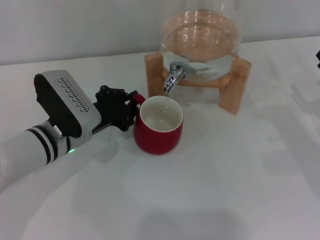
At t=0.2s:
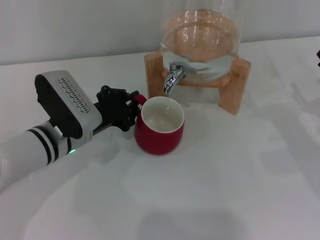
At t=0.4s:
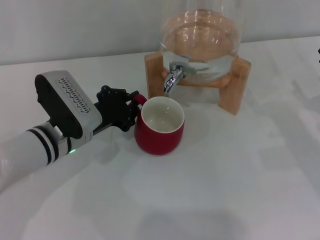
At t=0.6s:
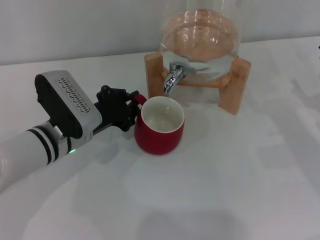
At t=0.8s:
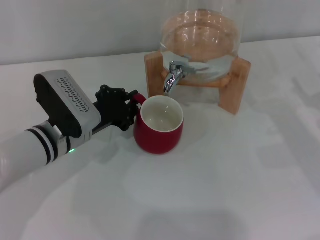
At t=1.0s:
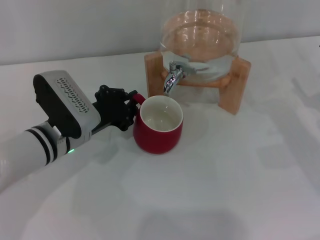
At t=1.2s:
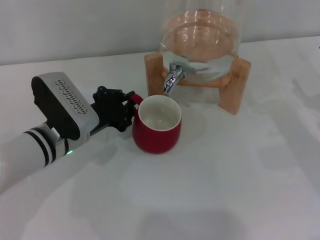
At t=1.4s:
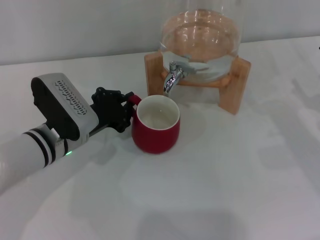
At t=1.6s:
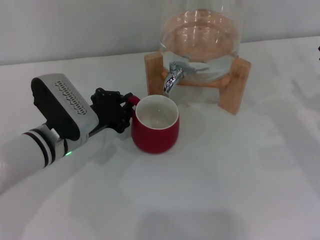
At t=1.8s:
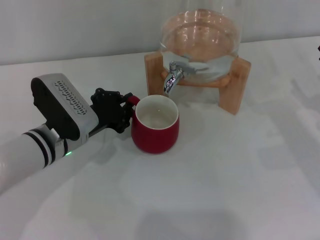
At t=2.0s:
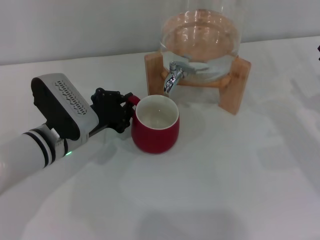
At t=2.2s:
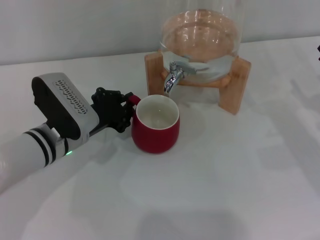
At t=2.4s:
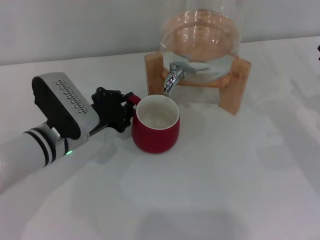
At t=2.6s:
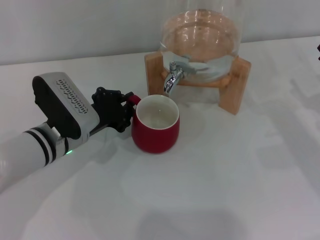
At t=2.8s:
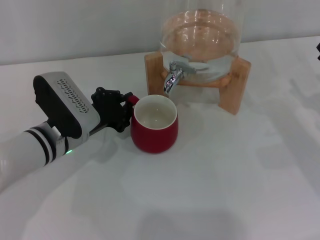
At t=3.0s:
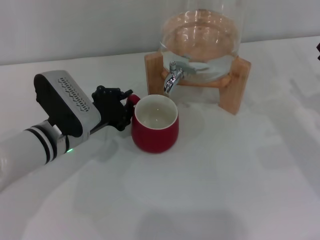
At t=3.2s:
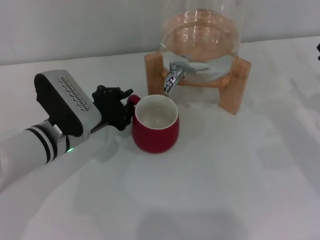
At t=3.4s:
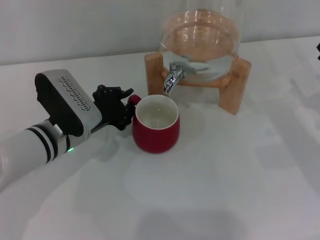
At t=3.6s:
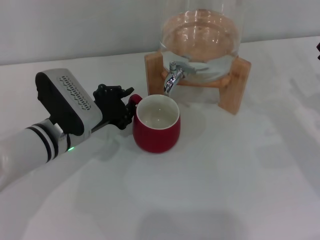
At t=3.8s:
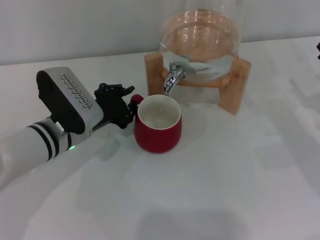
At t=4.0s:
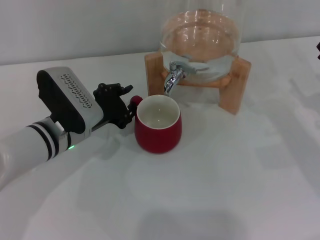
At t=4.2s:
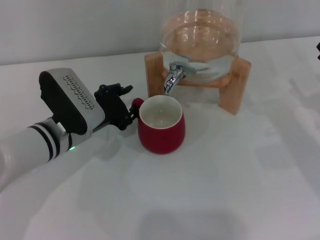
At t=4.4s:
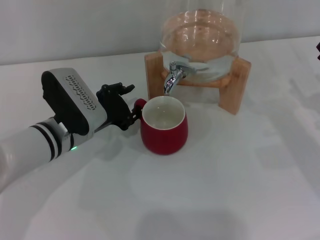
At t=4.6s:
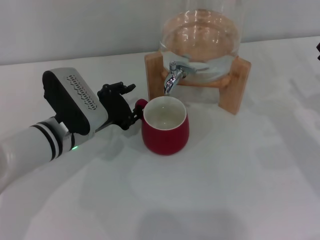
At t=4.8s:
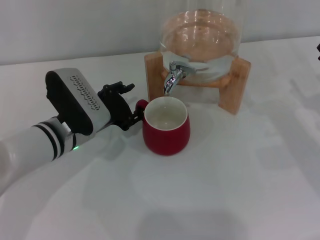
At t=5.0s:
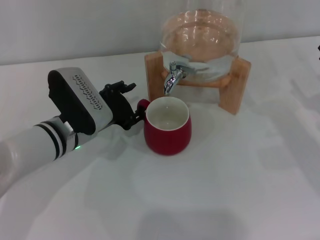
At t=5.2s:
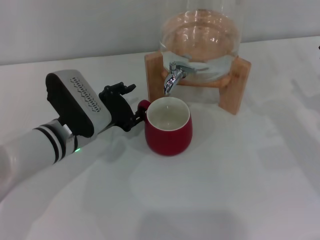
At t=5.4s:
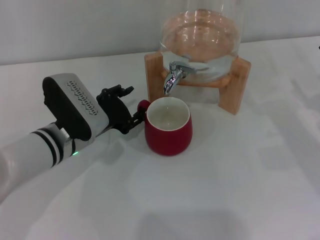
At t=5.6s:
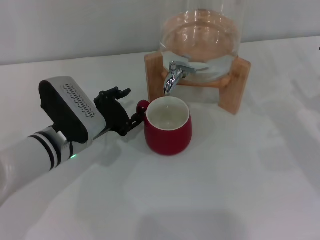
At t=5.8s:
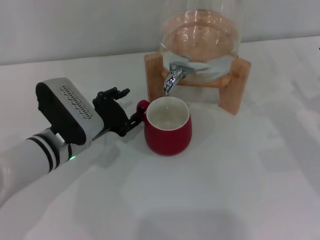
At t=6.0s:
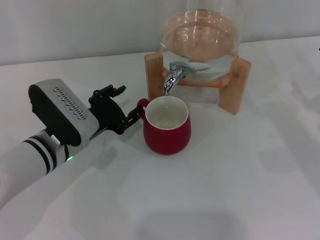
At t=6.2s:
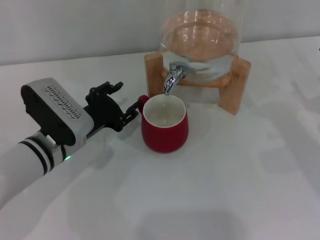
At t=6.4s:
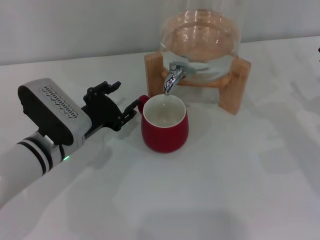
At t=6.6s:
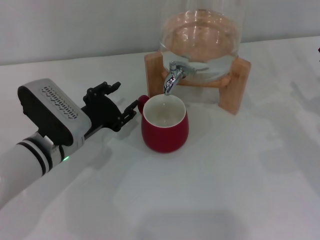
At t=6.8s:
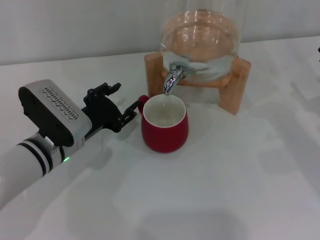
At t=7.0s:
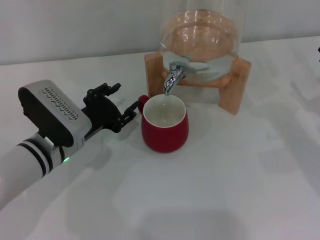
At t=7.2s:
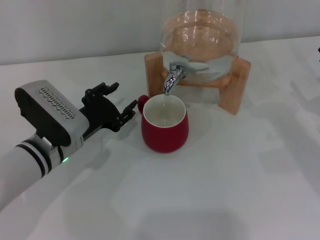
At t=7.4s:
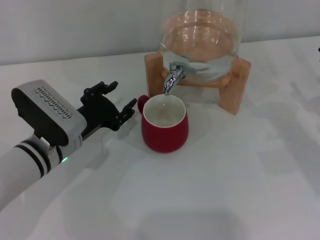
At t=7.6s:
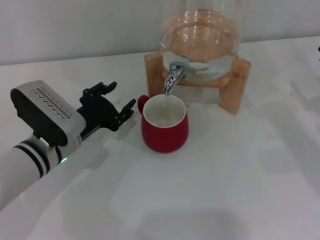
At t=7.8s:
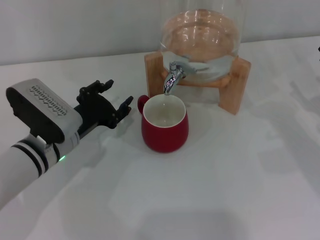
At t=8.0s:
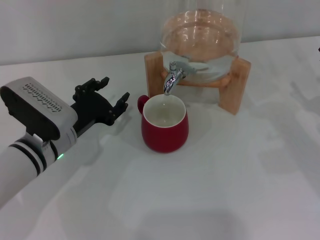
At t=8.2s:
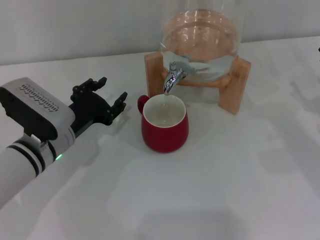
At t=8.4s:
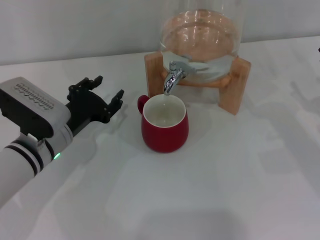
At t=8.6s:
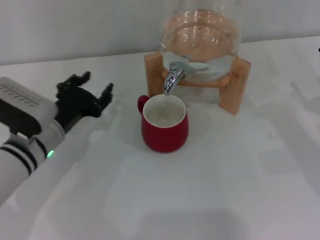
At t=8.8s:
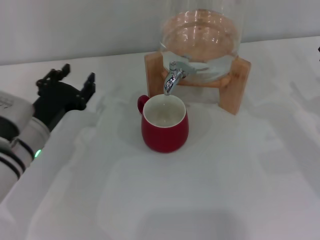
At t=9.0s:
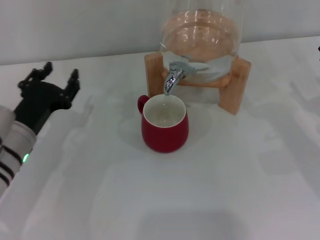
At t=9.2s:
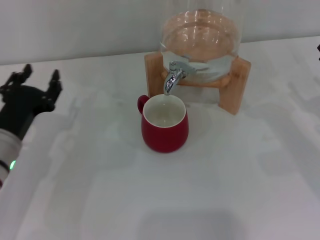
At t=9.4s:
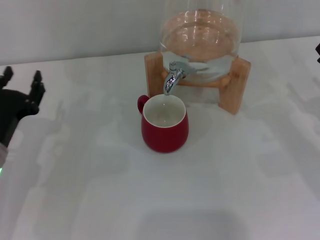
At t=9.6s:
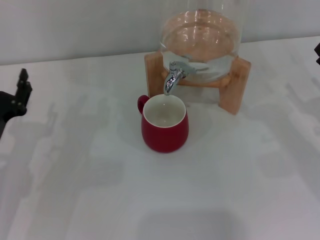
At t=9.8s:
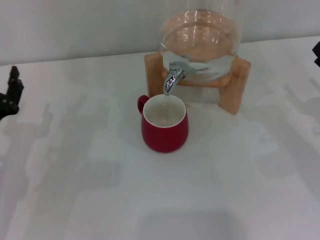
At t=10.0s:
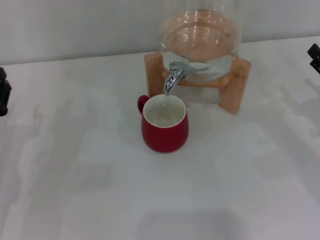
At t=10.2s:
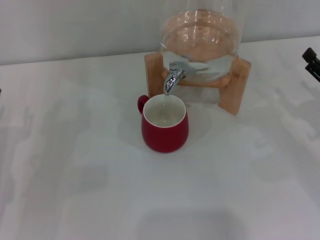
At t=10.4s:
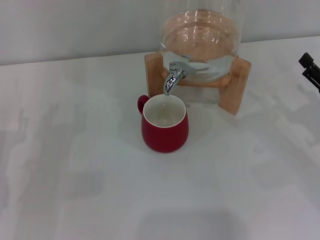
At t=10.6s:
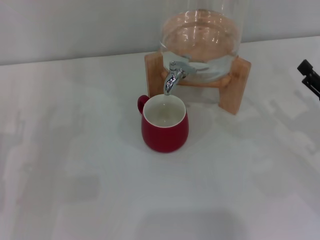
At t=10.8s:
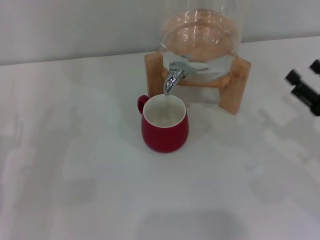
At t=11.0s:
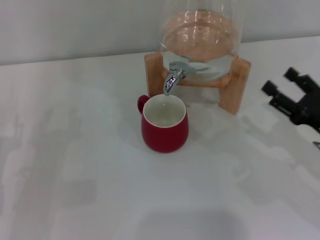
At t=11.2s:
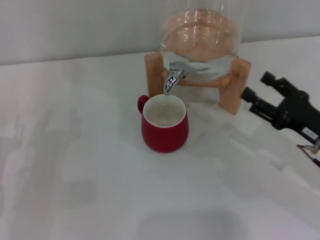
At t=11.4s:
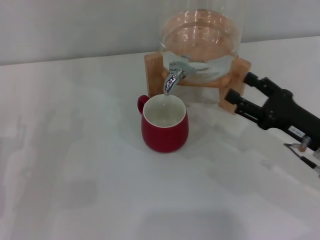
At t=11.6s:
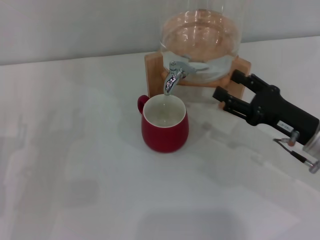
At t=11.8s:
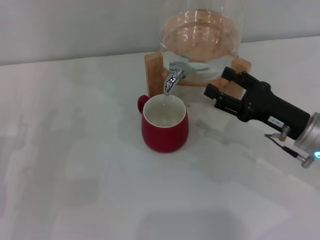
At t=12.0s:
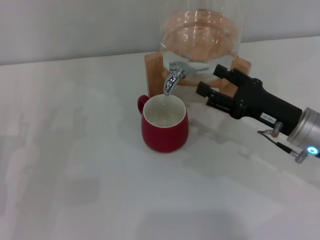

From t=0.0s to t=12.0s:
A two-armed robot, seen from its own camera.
Task of the whole recording: the left gripper pick up the red cup and place it horizontally under the faucet, the right gripper turn on the faucet to fill the cup, and then turn off the faucet.
Step, from t=0.0s to t=7.2s: Move the cup beneath the water dispenser nozzle with the left gripper.
From t=0.0s to t=1.6s: There are only small adjustments of the grippers.
From t=1.6s to t=3.0s: The two grippers keep their place.
From t=3.0s to t=4.4s: The left gripper opens.
From t=4.4s to t=7.6s: There are only small adjustments of the grippers.
From t=7.6s to t=9.0s: The left gripper goes roughly 5 cm to the left.
From t=9.0s to t=10.4s: The left gripper shifts some 5 cm to the left.
From t=10.4s to t=12.0s: The right gripper shifts about 10 cm to the left.

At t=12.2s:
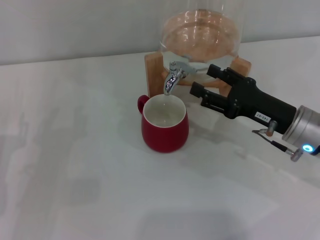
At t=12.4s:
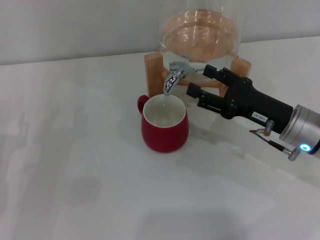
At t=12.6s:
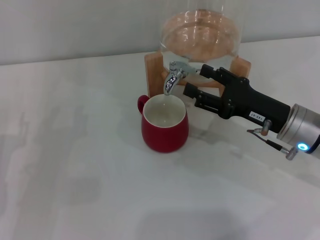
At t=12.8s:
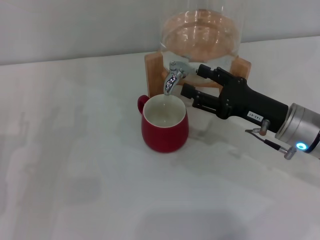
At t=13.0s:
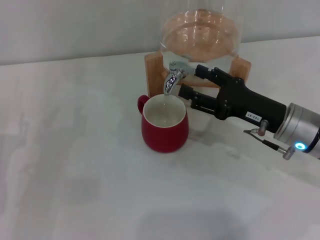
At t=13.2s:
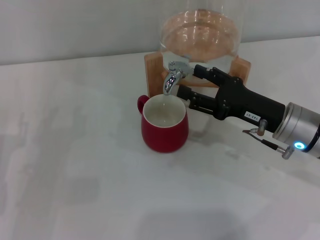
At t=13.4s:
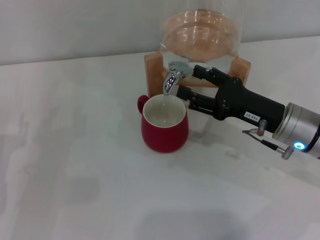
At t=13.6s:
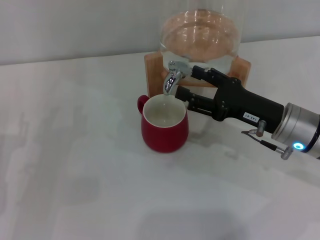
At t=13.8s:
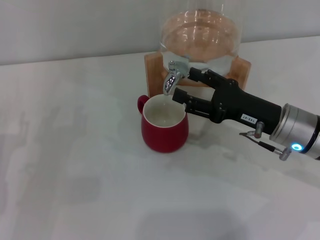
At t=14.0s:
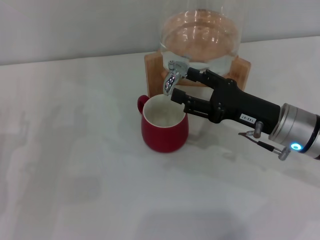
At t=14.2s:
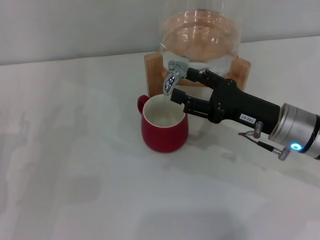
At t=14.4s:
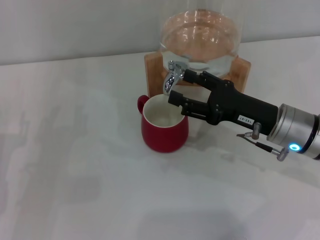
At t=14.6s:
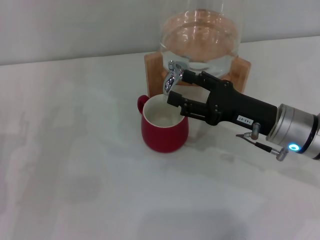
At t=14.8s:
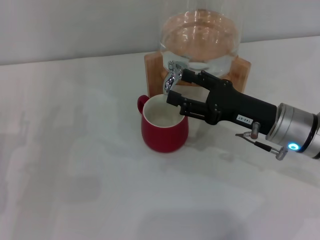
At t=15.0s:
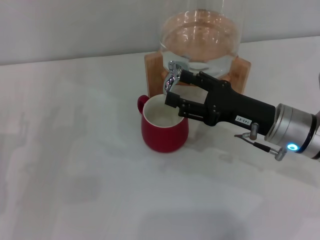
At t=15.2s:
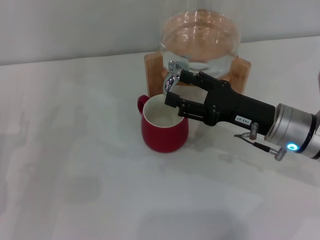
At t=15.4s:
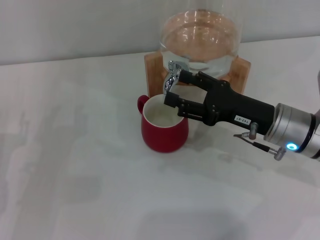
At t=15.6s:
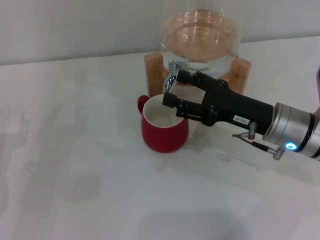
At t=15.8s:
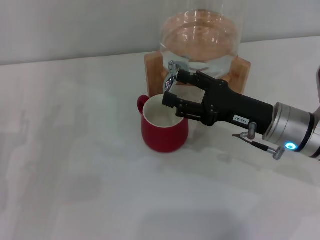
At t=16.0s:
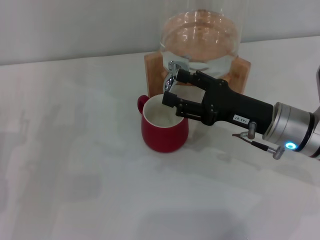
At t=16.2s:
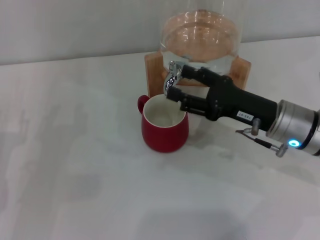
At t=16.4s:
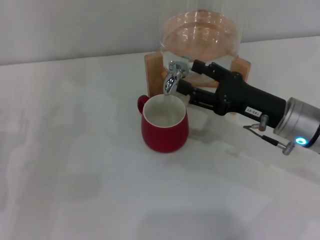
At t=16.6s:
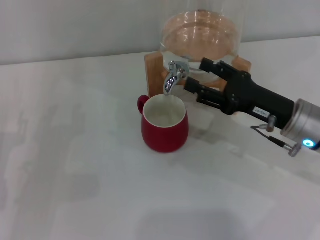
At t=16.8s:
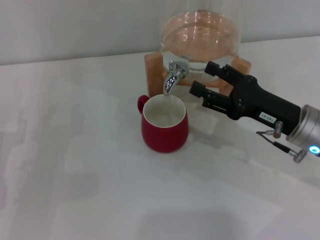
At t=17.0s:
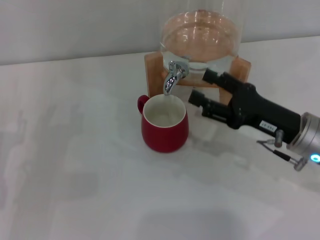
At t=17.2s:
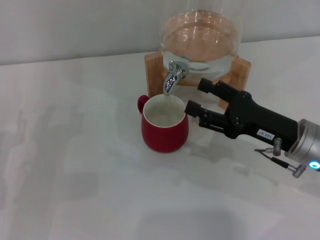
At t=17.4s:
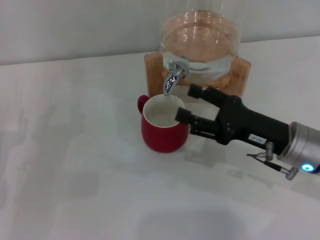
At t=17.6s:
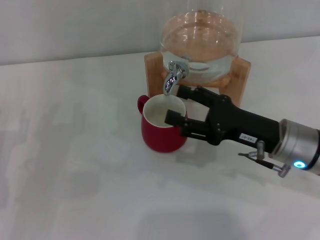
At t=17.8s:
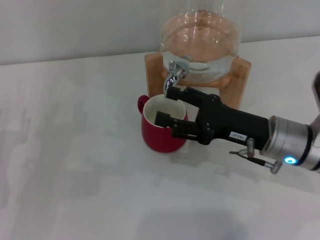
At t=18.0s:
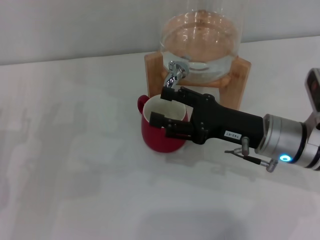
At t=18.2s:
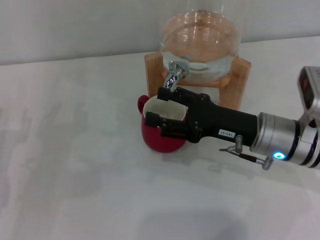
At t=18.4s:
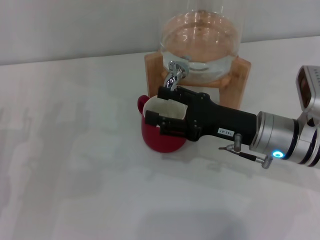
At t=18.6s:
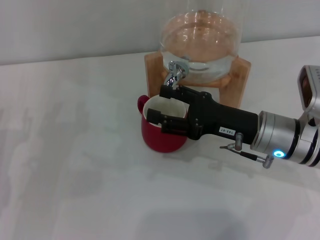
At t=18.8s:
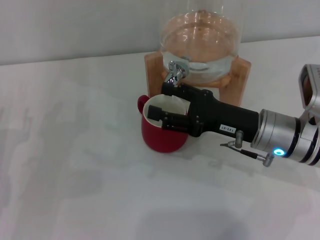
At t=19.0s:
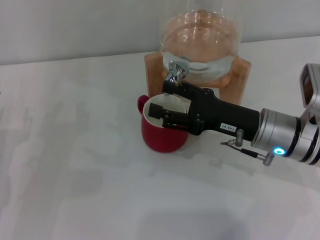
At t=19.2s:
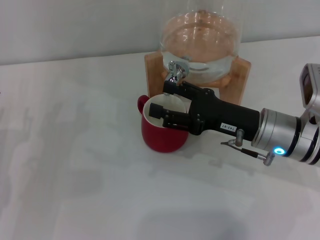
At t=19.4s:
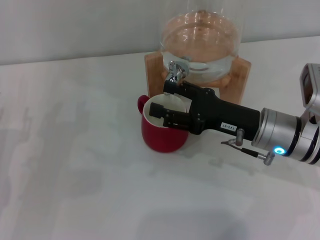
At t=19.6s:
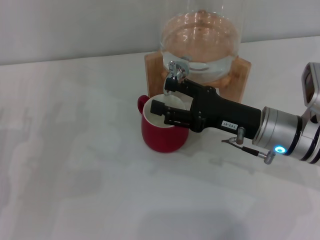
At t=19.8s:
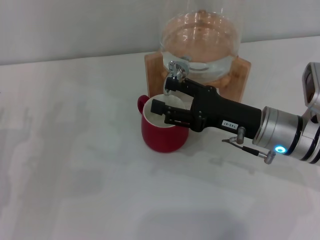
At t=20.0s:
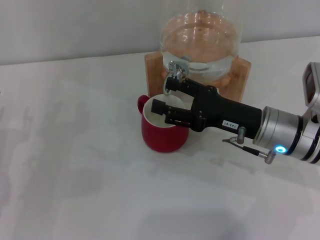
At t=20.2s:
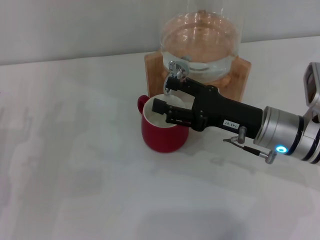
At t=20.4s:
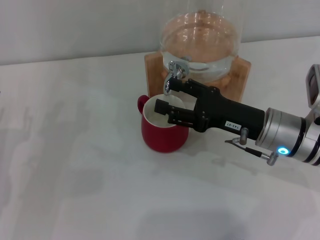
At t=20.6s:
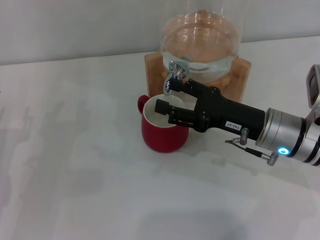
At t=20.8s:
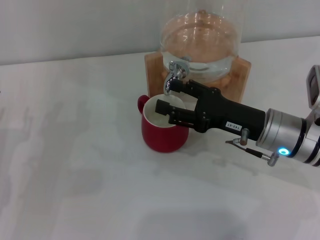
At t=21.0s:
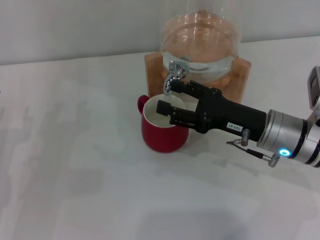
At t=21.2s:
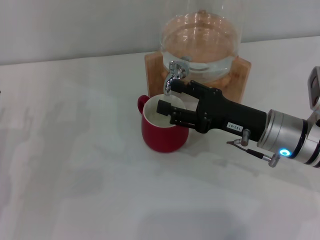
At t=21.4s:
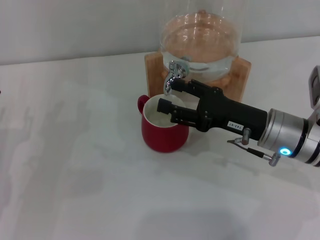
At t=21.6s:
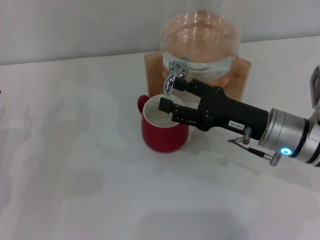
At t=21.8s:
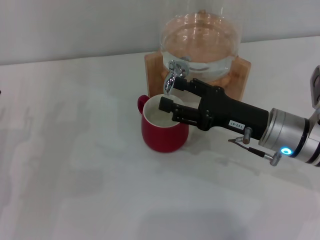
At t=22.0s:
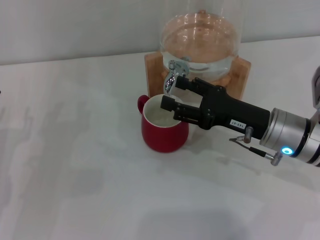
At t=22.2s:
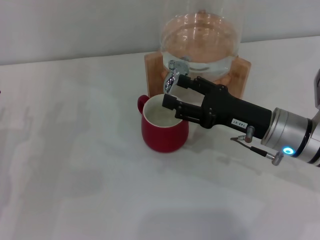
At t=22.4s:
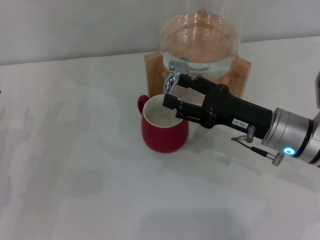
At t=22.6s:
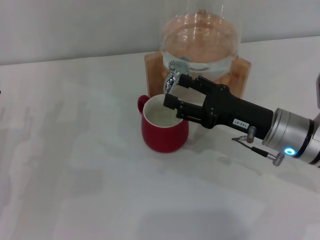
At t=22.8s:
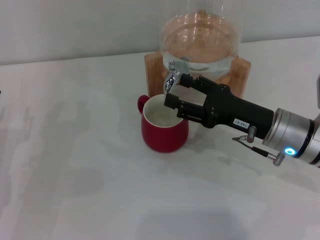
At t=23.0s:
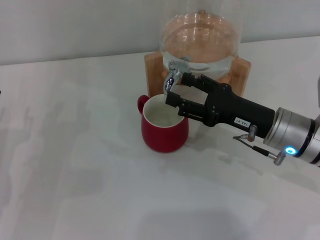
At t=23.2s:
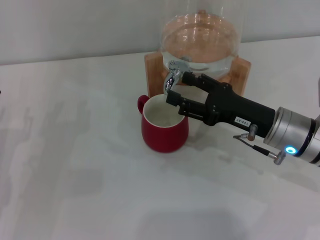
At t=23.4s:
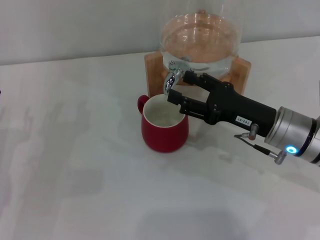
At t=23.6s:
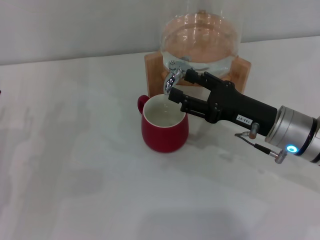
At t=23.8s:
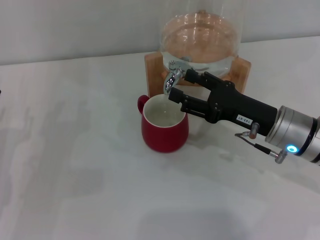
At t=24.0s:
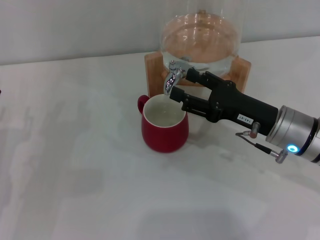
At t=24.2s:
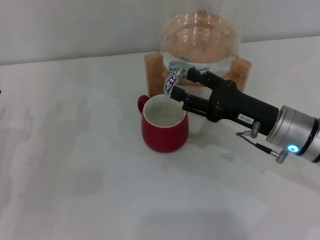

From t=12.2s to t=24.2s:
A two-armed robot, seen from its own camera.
Task of the whole recording: the left gripper pick up the red cup and place it horizontally under the faucet, the right gripper turn on the faucet to fill the cup, and then turn off the faucet.
Step, from t=12.2s to t=16.0s: Open the dispenser valve and fill the cup with water with the right gripper.
From t=12.2s to t=13.8s: The grippers stay close to where they were, moving slightly.
From t=13.8s to t=15.2s: Both grippers stay put.
From t=15.2s to t=18.2s: There are only small adjustments of the grippers.
From t=18.2s to t=19.8s: Both grippers stay about where they are.
From t=19.8s to t=21.2s: Neither gripper changes place.
From t=21.2s to t=22.6s: Both grippers stay put.
From t=22.6s to t=24.2s: The two grippers keep their place.
